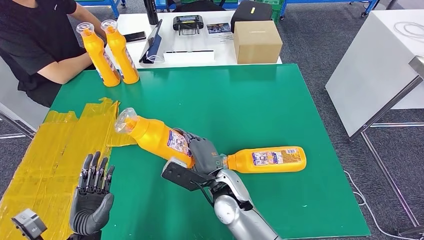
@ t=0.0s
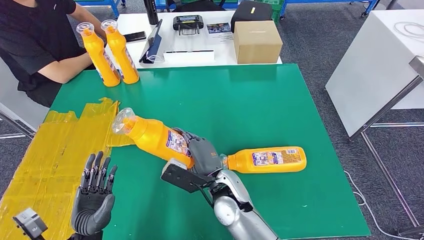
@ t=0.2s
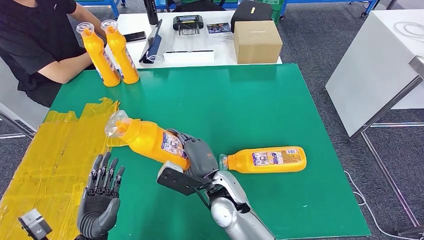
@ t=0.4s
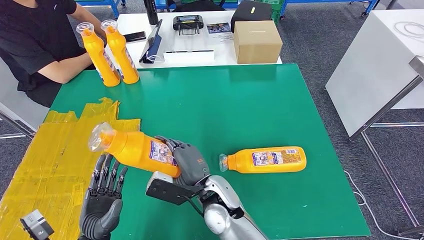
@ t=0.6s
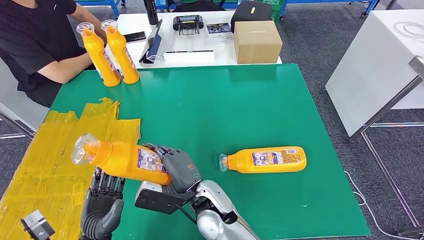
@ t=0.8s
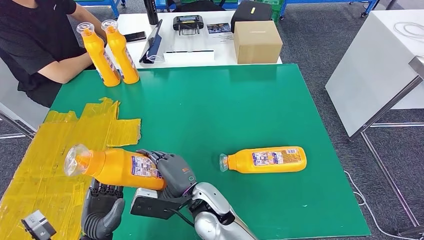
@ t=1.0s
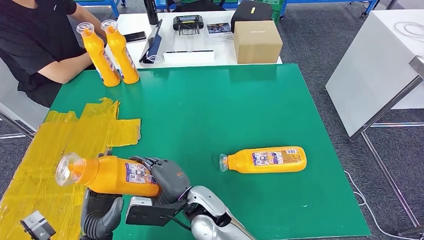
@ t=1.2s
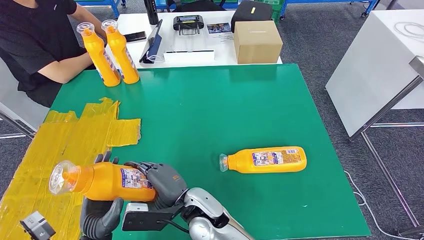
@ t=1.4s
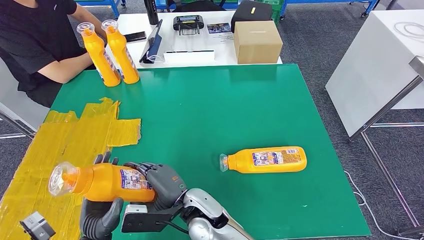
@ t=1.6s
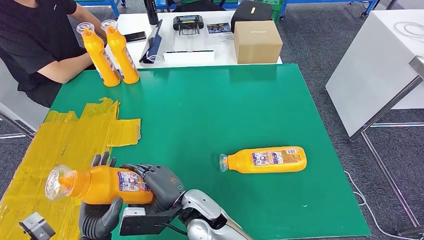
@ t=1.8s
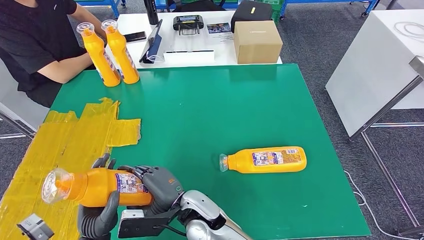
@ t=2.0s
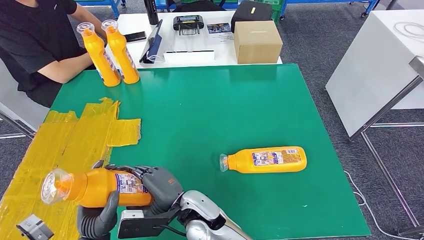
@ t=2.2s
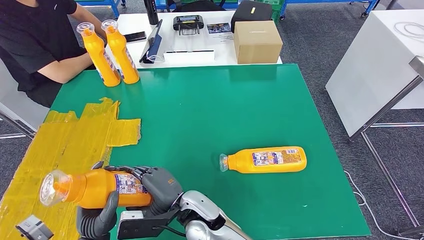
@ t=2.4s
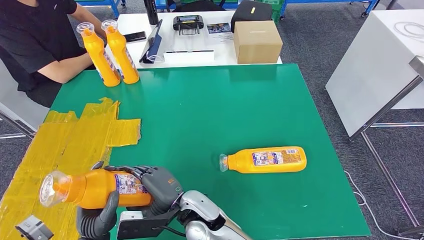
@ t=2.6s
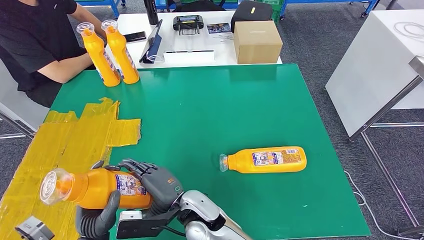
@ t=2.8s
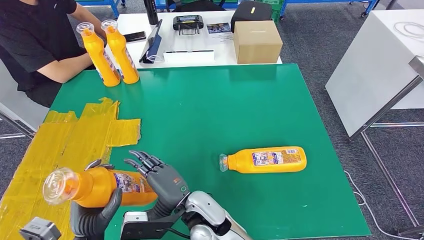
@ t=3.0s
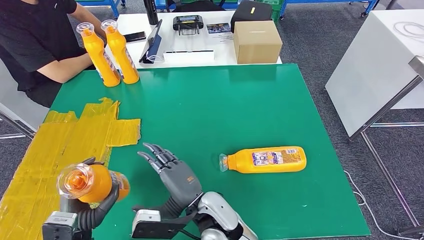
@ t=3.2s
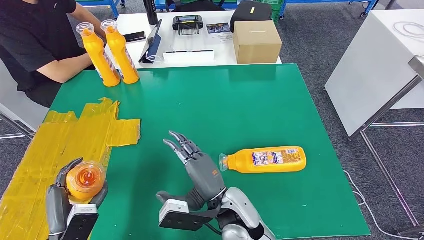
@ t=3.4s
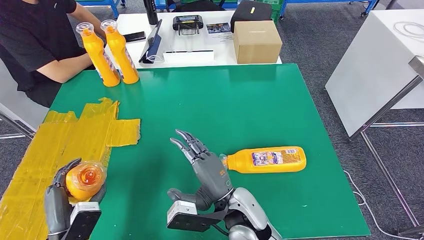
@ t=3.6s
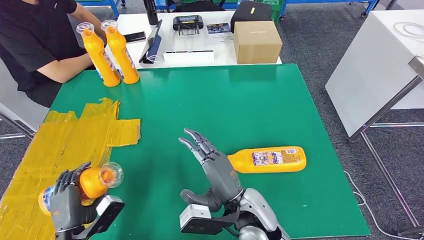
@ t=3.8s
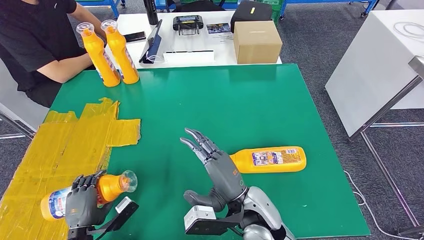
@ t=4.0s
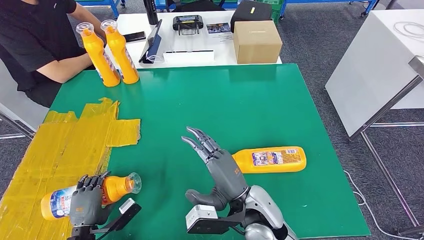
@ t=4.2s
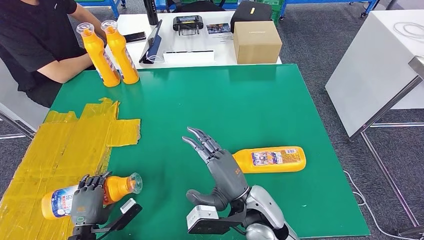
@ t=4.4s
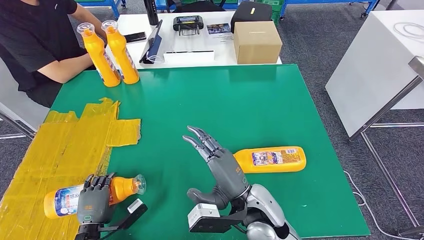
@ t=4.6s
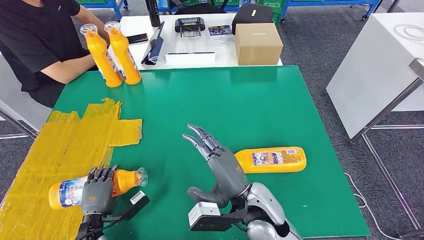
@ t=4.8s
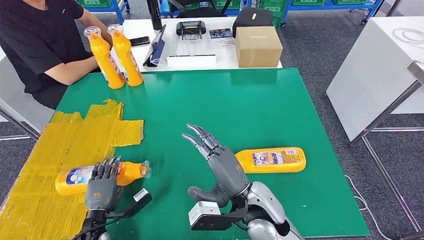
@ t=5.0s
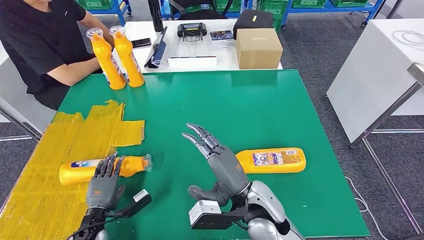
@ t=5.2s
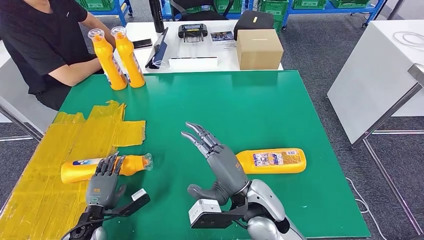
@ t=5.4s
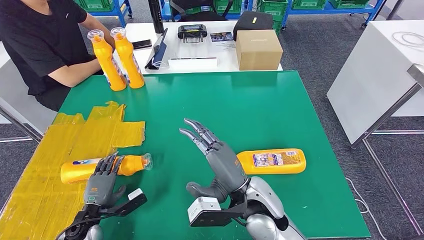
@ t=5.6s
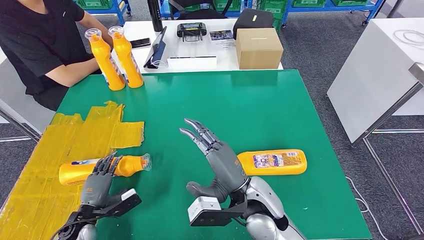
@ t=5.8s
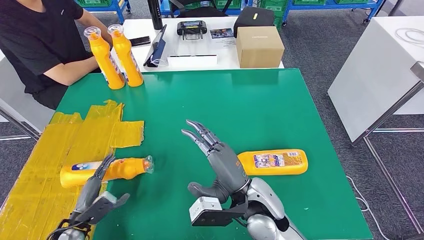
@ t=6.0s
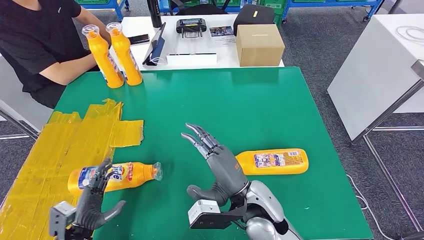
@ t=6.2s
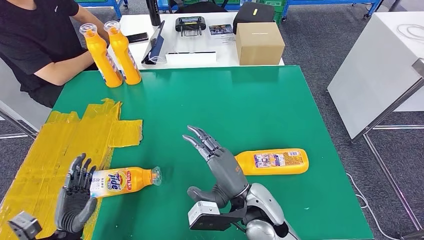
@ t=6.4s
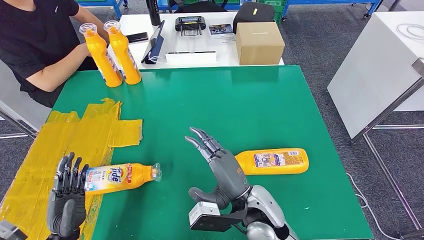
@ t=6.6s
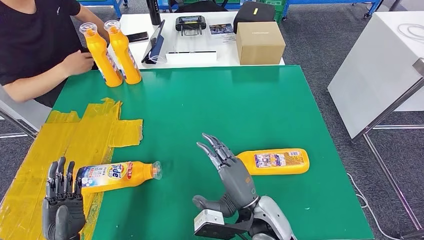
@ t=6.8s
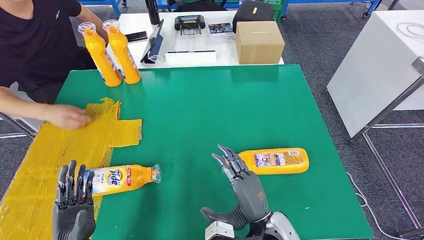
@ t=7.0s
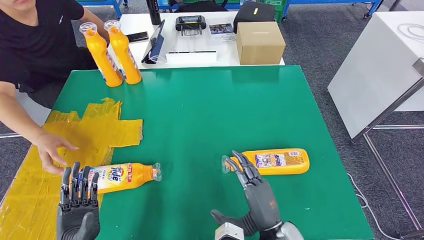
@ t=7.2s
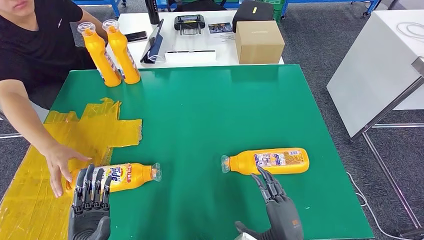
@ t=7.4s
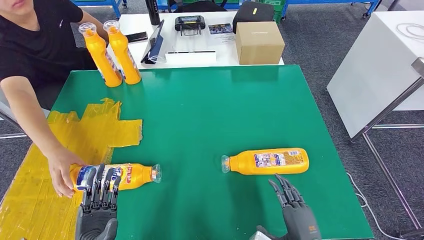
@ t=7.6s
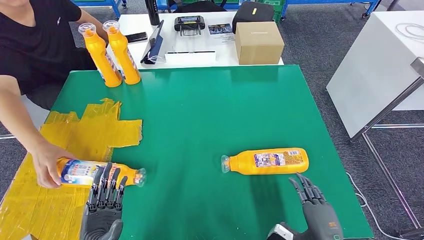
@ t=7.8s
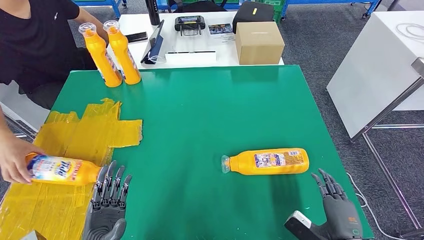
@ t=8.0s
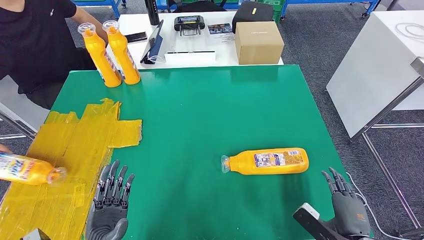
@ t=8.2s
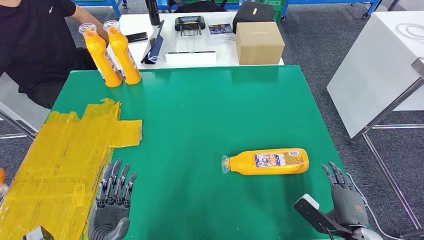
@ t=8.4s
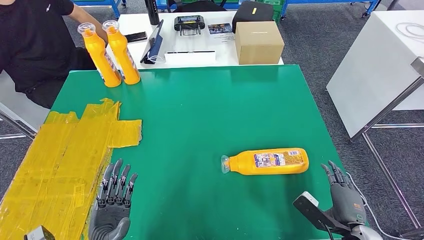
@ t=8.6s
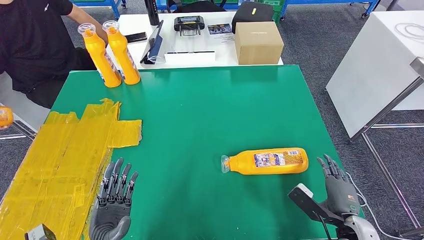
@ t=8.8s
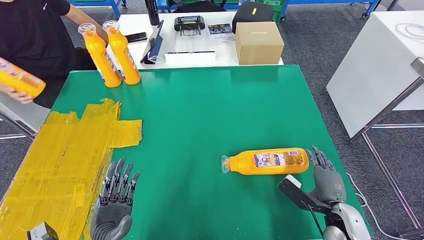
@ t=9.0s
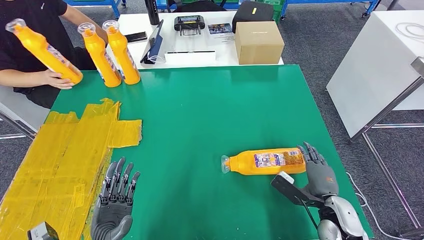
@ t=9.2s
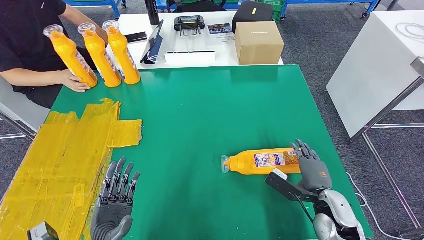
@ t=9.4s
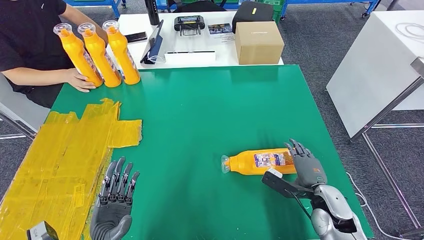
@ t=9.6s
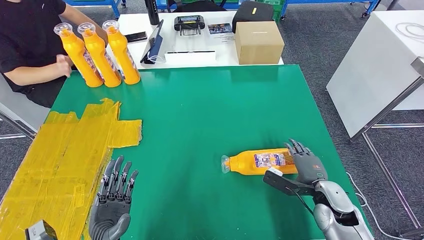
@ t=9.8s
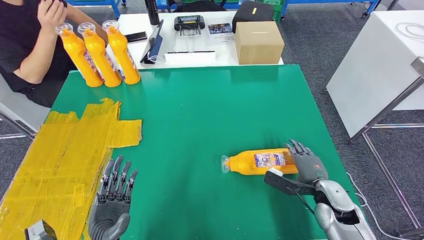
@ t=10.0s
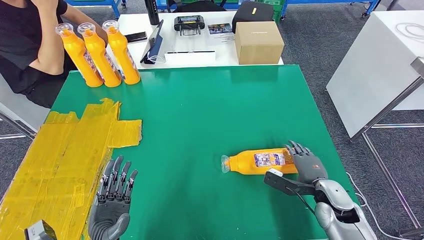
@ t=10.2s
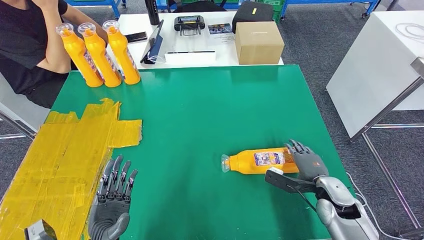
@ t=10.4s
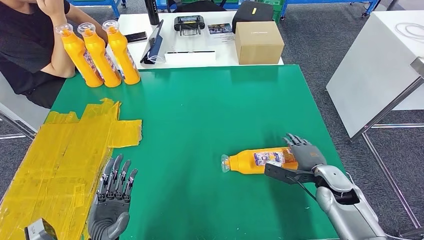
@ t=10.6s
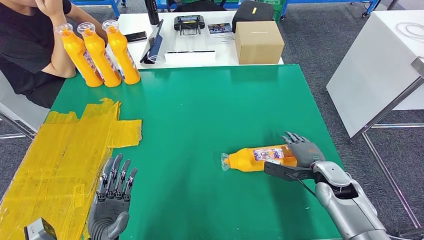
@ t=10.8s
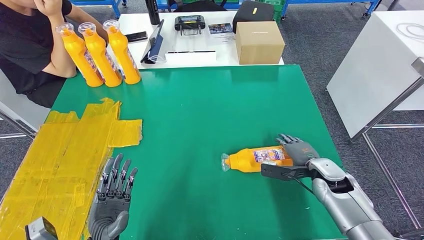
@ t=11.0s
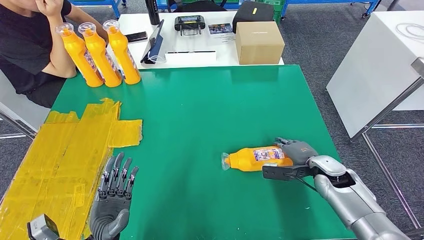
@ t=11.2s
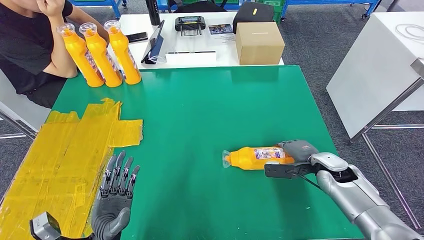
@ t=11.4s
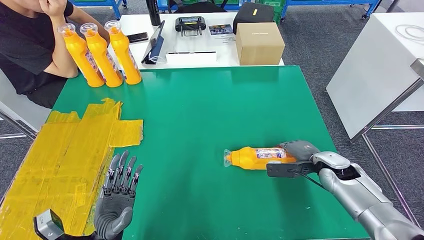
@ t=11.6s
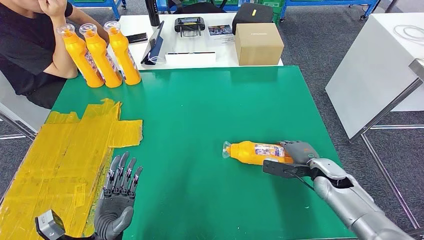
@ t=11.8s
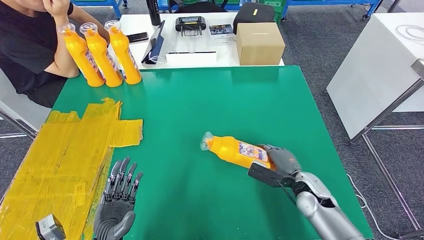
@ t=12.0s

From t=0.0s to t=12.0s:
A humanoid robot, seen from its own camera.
Step, from t=1.2s to t=6.0s: Flip the fast-moving consumer goods bottle to the front side.
From t=0.0s to t=1.6s: The right hand shifts about 5 cm to the left.
From t=3.0s to t=4.4s: The right hand shifts some 10 cm to the right. The left hand moves downward and to the left, about 10 cm.
From t=7.6s to t=9.0s: The right hand shifts approximately 15 cm forward and to the right.
From t=9.0s to t=10.4s: The right hand is displaced forward by roughly 10 cm.
From t=10.4s to t=12.0s: The right hand shifts by approximately 5 cm.

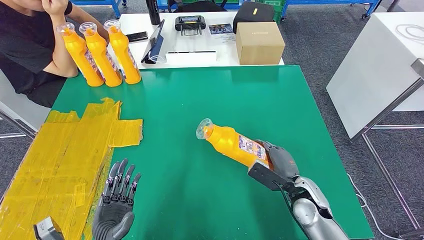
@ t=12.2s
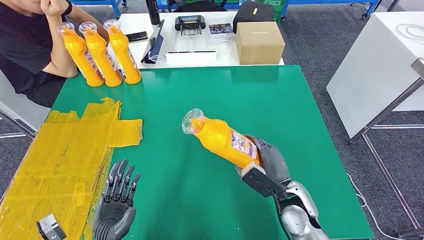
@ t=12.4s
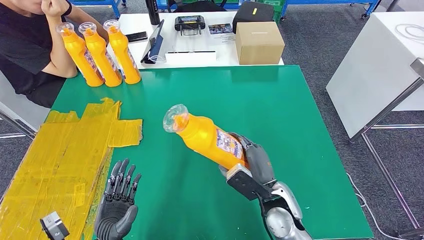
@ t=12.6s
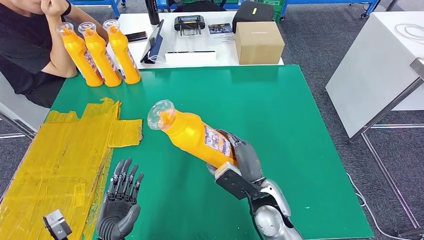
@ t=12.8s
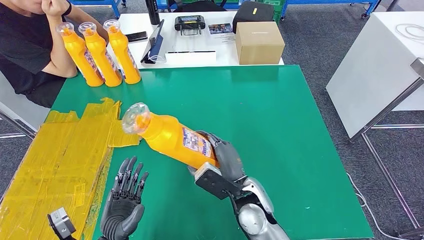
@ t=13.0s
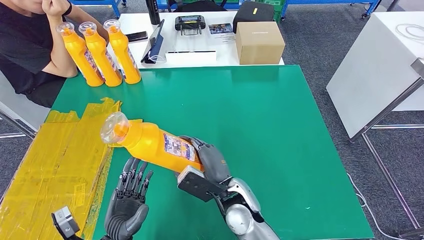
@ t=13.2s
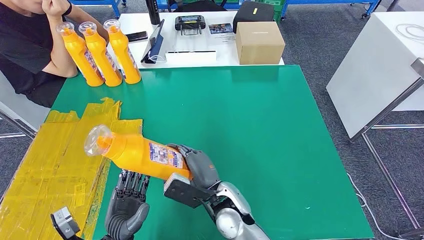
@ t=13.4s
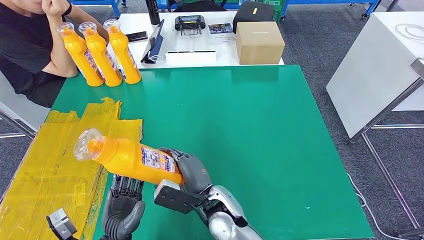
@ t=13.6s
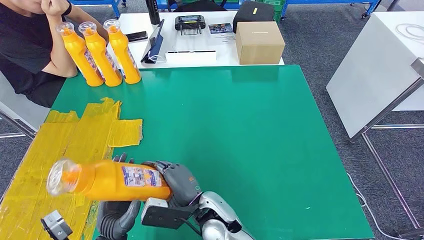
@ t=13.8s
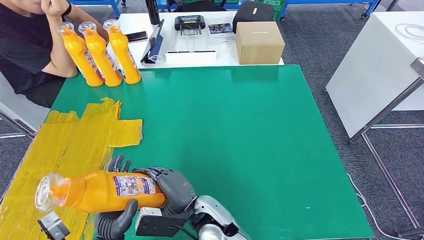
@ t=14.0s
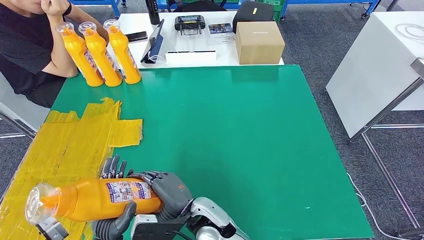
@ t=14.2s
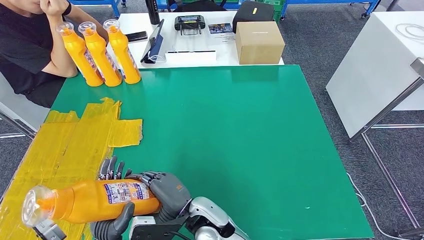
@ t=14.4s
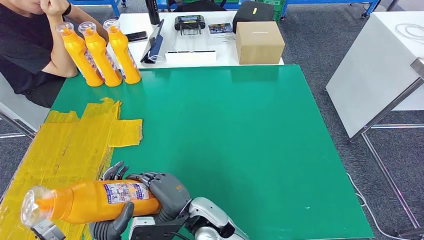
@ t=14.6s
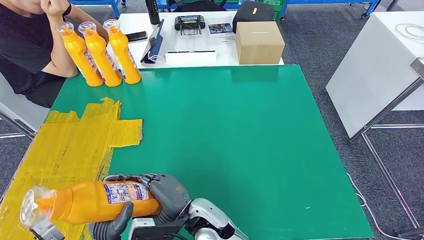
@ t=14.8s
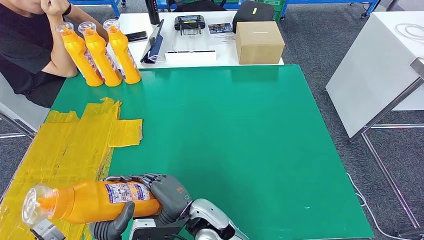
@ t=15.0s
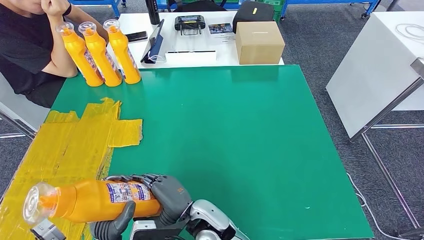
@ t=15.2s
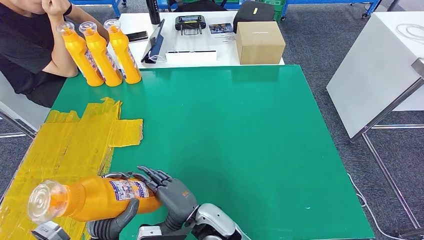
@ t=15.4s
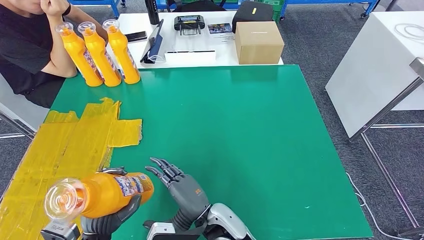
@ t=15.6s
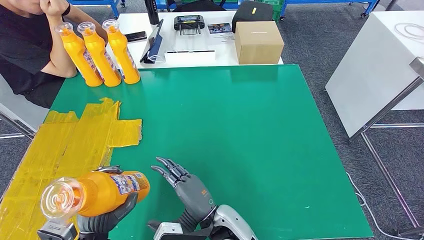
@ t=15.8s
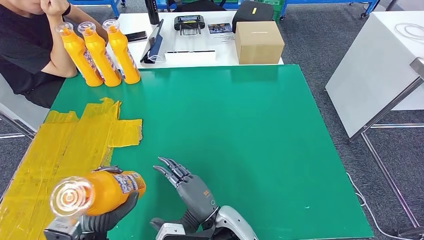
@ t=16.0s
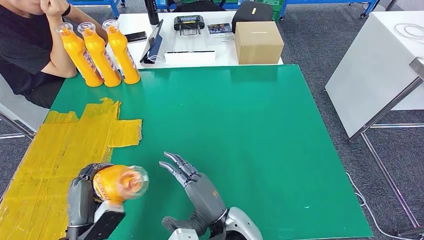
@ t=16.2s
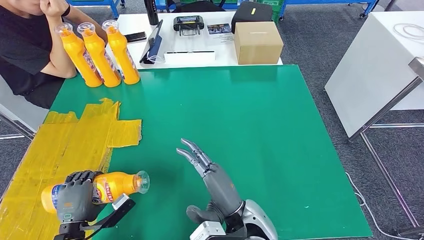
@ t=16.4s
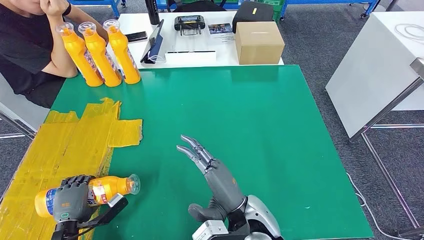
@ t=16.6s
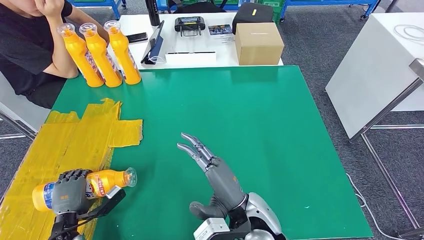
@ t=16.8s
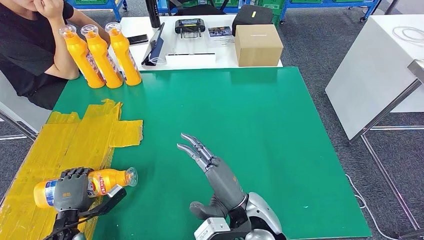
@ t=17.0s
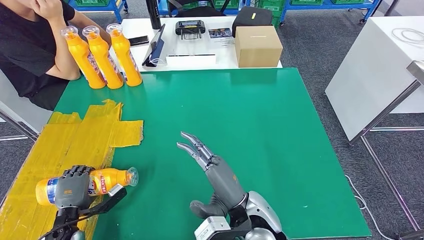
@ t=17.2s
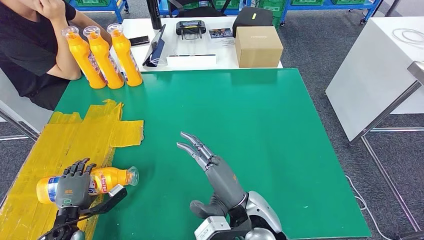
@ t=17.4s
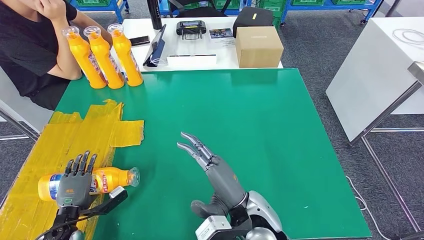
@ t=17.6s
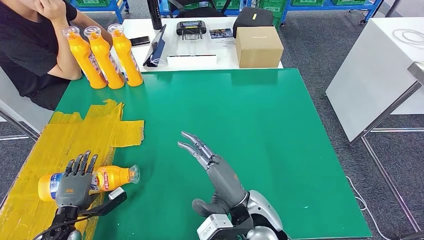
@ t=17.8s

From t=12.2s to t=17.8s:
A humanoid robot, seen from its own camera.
Step, from t=13.6s to t=17.8s: Flip the fast-moving consumer goods bottle to the front side.
From t=12.2s to t=13.6s: The right hand moves to the left, some 25 cm.
From t=13.6s to t=15.0s: The hands move only a little.
From t=15.0s to t=16.4s: The left hand goes approximately 10 cm to the left. Meanwhile the right hand heads to the right, covering about 10 cm.
